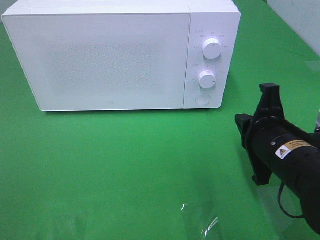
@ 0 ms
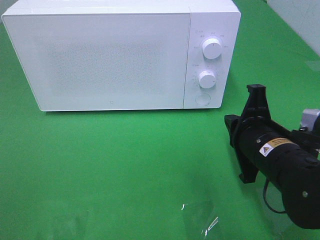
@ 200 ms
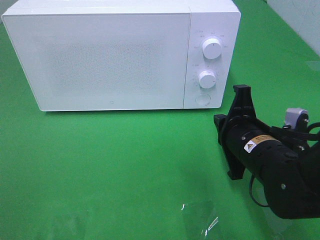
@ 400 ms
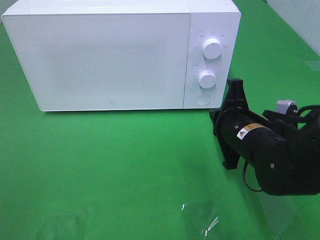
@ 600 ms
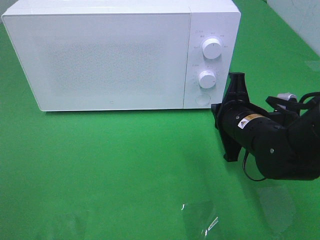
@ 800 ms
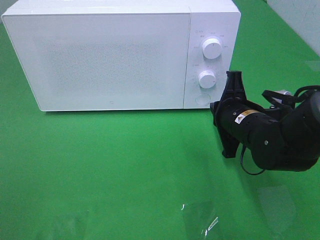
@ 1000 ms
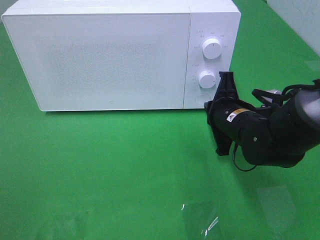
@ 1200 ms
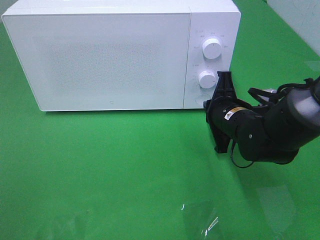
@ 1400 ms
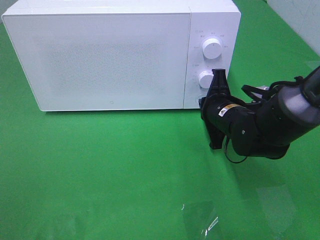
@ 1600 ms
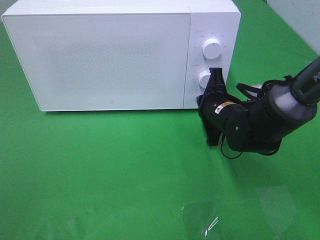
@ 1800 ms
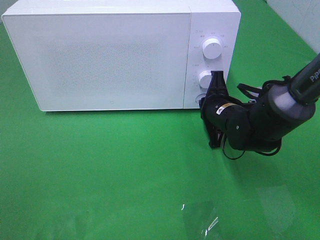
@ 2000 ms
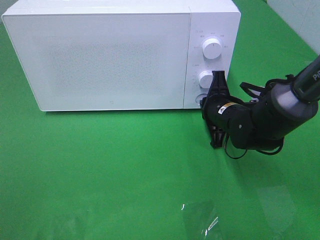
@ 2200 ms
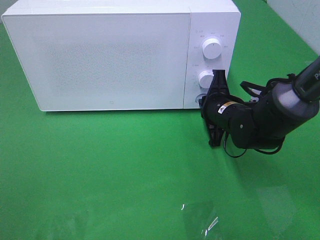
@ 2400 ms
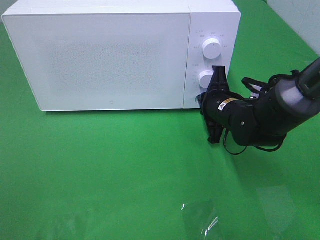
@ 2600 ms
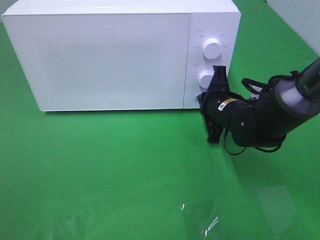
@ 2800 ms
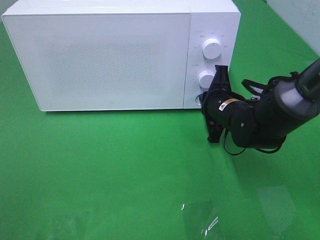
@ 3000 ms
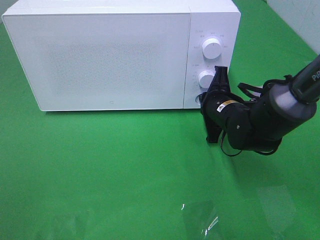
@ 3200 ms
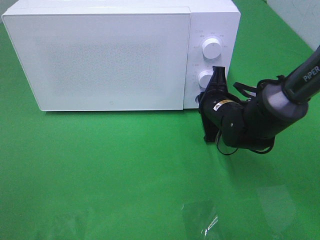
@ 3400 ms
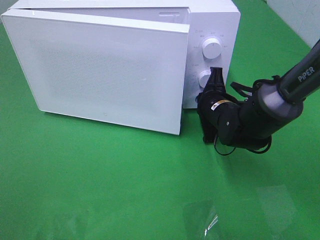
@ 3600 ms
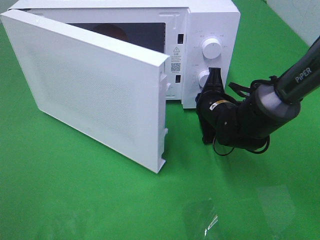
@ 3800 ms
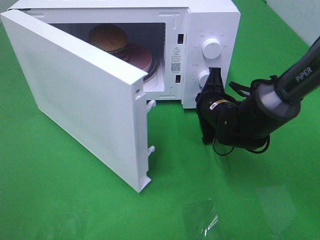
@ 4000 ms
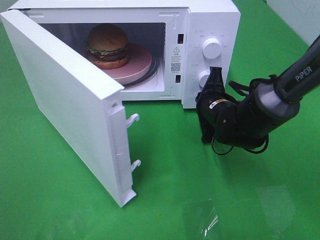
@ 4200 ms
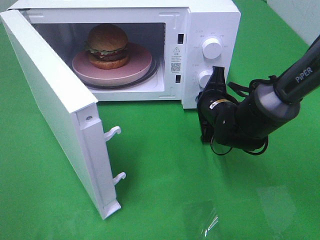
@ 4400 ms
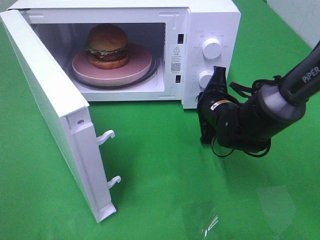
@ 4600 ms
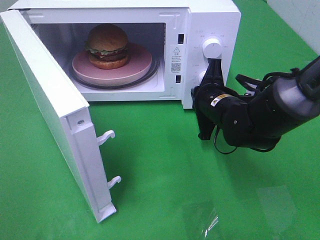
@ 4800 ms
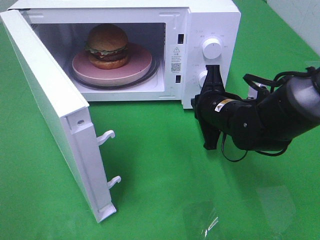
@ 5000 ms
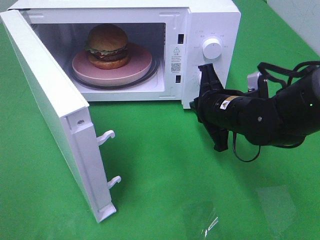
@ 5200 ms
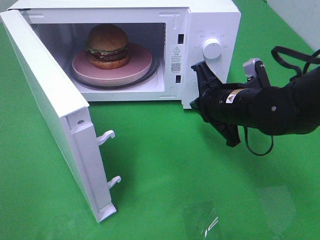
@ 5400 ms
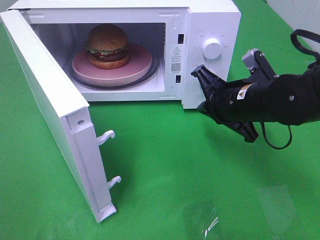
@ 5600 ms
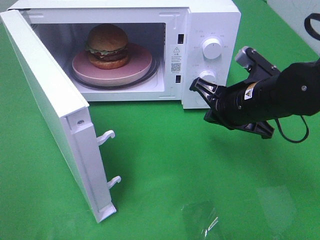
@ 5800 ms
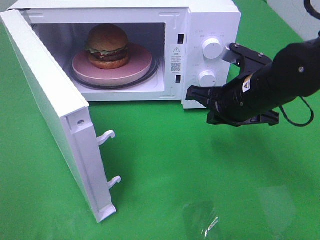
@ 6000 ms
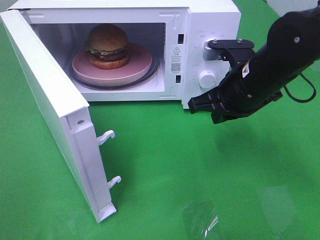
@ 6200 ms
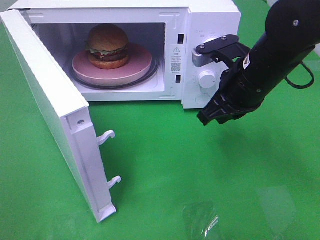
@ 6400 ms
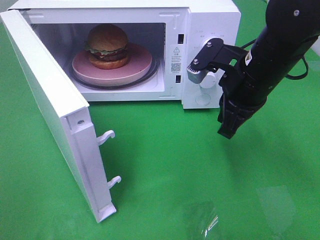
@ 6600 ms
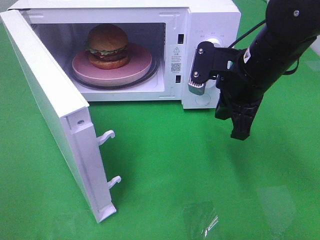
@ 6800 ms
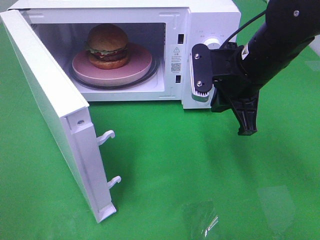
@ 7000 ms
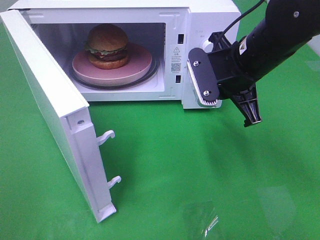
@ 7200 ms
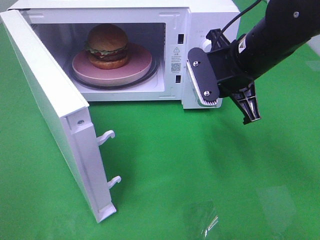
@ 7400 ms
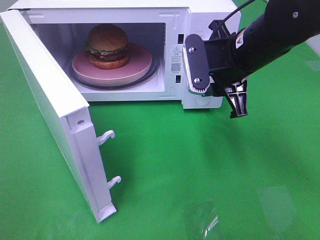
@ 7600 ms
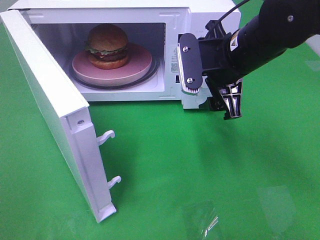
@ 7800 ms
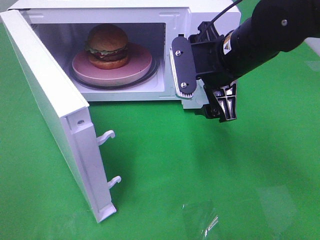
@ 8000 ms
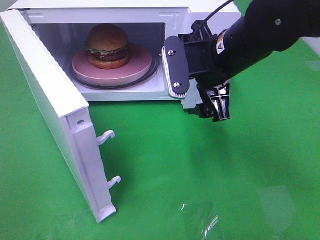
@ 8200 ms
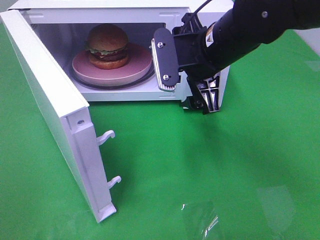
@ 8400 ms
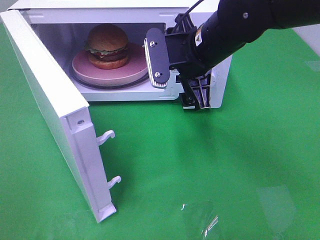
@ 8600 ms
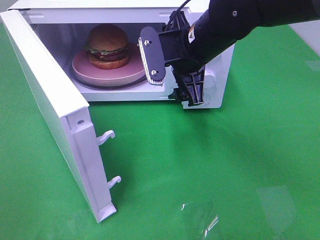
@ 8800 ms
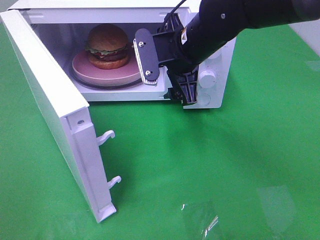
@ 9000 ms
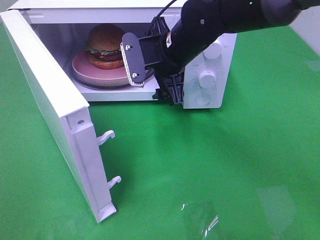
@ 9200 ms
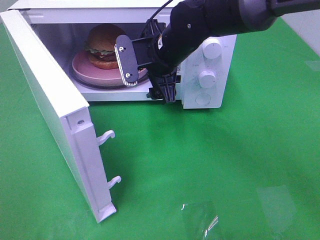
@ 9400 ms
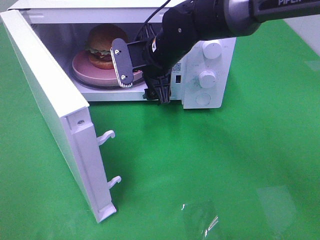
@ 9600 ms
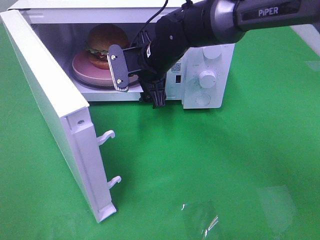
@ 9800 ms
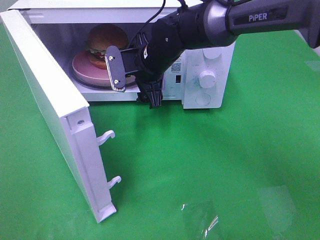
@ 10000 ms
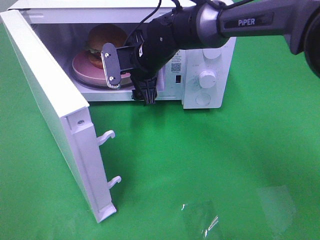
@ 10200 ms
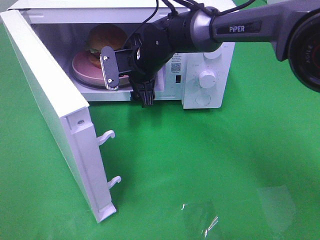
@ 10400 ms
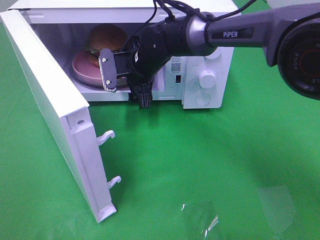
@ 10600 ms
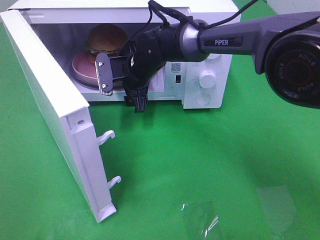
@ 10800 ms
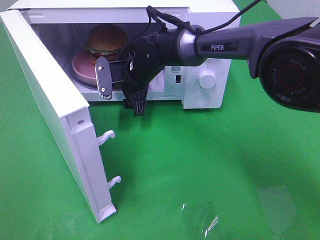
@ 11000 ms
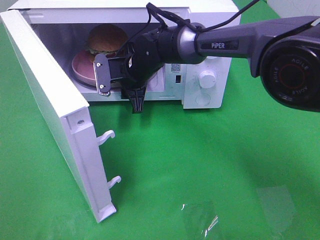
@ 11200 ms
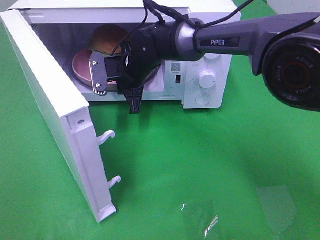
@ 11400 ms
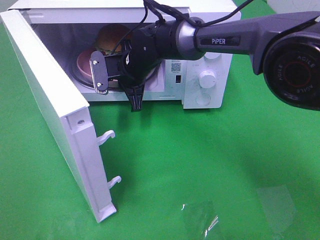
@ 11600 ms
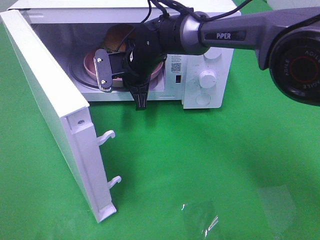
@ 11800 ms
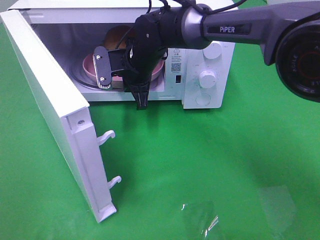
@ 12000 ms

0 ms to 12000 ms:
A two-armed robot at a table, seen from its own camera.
Task of the whole recording: Heat the burger.
Step, 0 ms to 4600 ms: Right hand: press the switch.
Step, 4800 ms to 11400 ms: Right hand: grab the plate with the hamburger.
0 ms to 1600 ms: The right gripper is displaced forward by roughly 10 cm.
1600 ms to 3000 ms: The grippers move only a little.
4400 ms to 6000 ms: The right gripper travels upward and backward by about 10 cm.
6000 ms to 7600 ms: The right gripper shifts roughly 5 cm upward, and opens.
7600 ms to 9000 ms: The right gripper travels to the left by approximately 5 cm, and opens up.
9000 ms to 10400 ms: The right gripper travels forward, to the left and downward by some 10 cm.
10400 ms to 12000 ms: The right gripper closes.

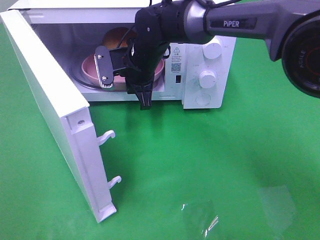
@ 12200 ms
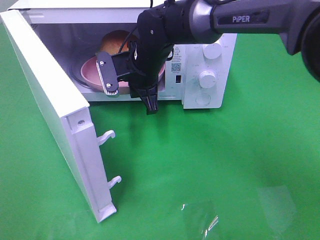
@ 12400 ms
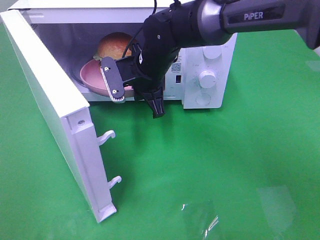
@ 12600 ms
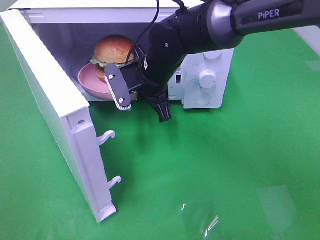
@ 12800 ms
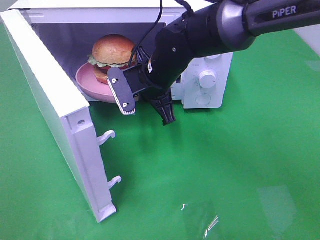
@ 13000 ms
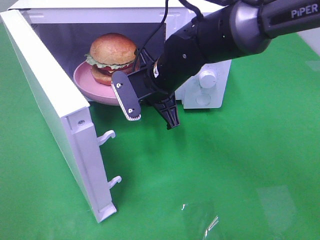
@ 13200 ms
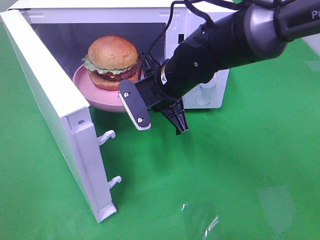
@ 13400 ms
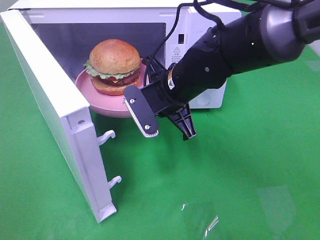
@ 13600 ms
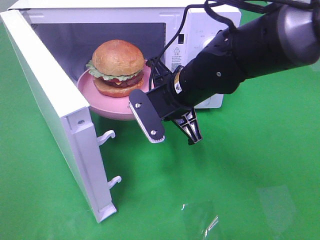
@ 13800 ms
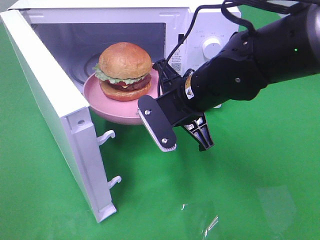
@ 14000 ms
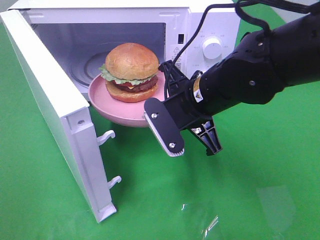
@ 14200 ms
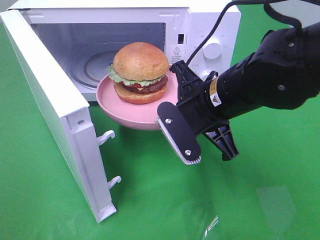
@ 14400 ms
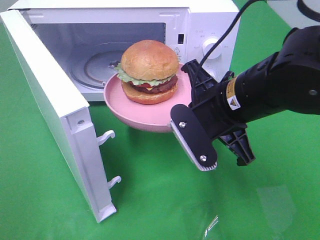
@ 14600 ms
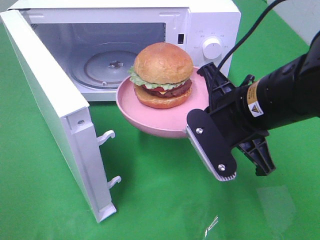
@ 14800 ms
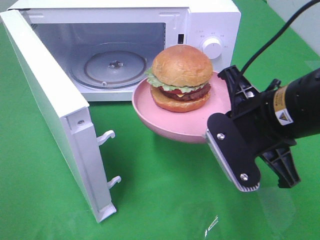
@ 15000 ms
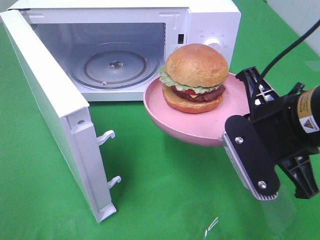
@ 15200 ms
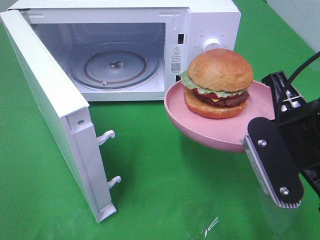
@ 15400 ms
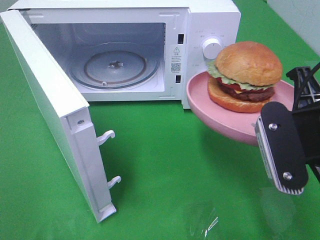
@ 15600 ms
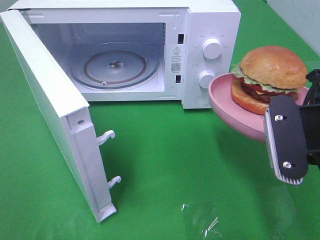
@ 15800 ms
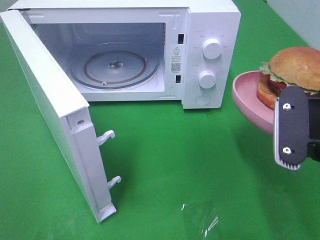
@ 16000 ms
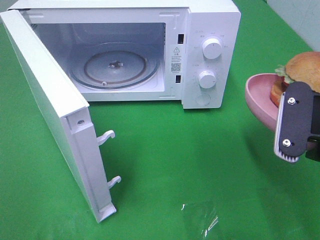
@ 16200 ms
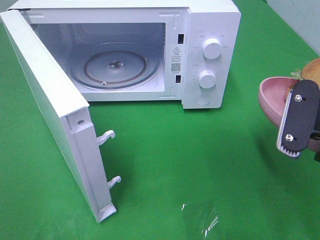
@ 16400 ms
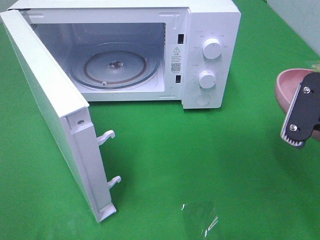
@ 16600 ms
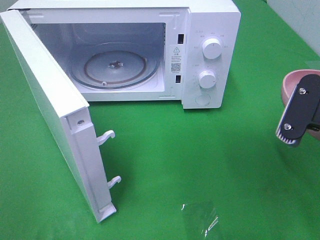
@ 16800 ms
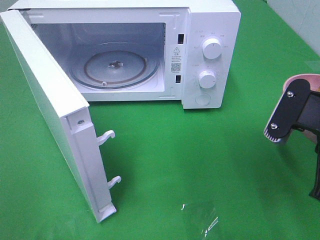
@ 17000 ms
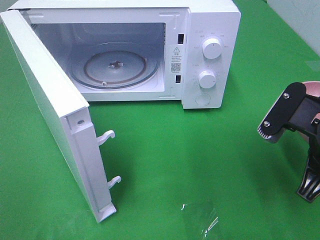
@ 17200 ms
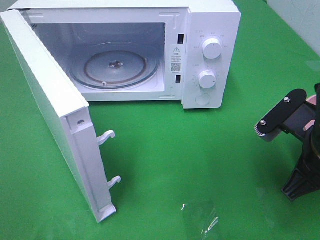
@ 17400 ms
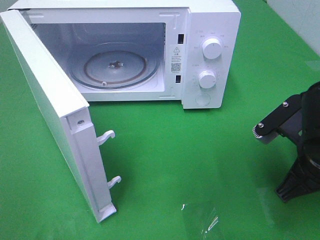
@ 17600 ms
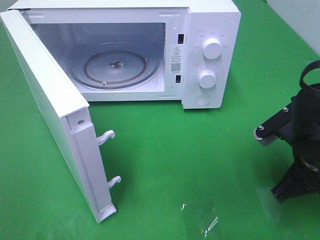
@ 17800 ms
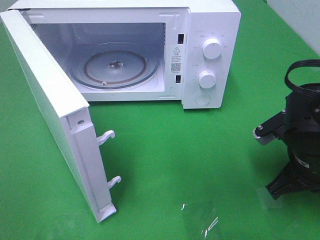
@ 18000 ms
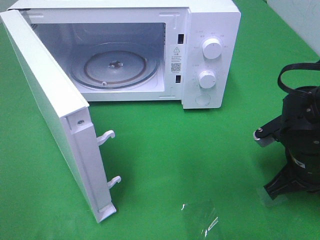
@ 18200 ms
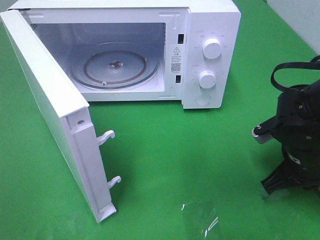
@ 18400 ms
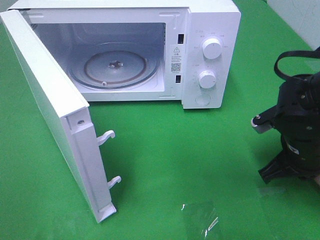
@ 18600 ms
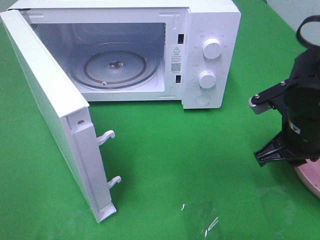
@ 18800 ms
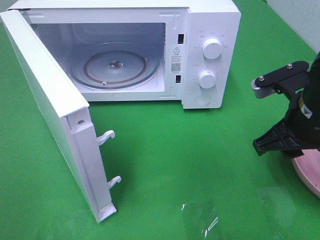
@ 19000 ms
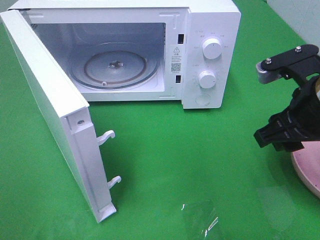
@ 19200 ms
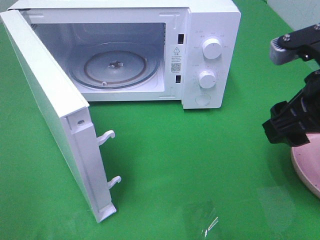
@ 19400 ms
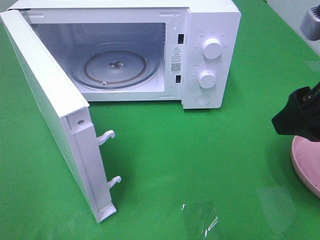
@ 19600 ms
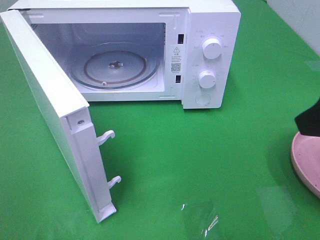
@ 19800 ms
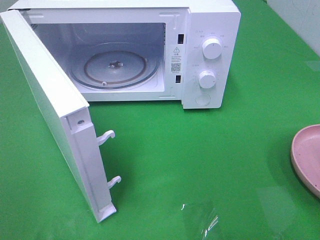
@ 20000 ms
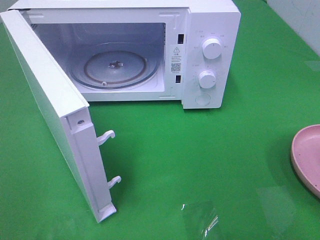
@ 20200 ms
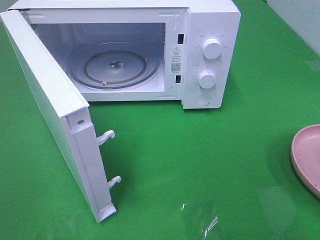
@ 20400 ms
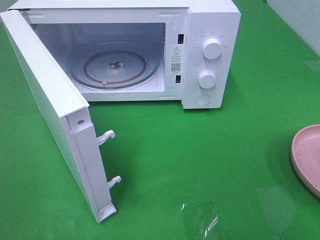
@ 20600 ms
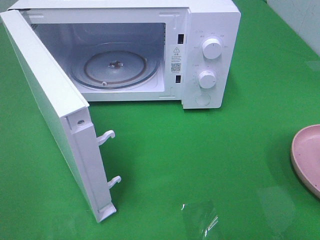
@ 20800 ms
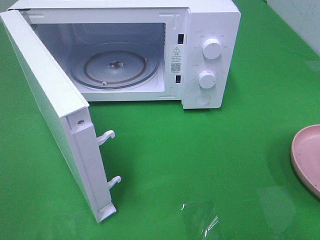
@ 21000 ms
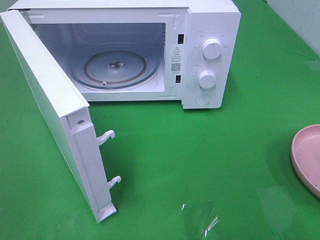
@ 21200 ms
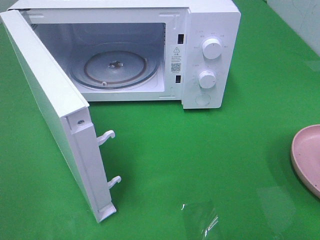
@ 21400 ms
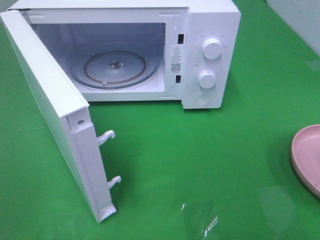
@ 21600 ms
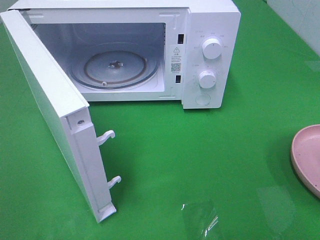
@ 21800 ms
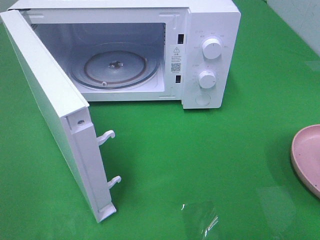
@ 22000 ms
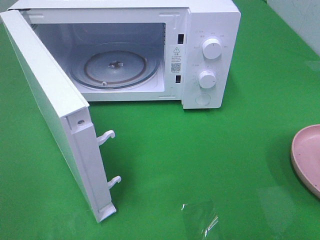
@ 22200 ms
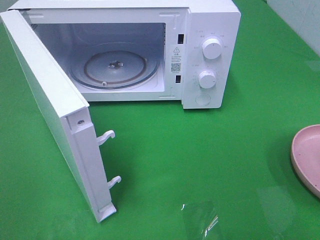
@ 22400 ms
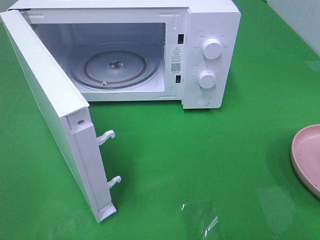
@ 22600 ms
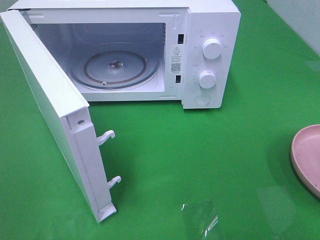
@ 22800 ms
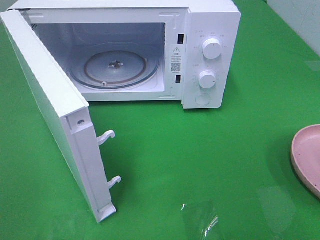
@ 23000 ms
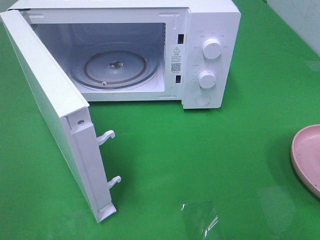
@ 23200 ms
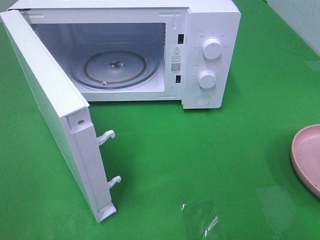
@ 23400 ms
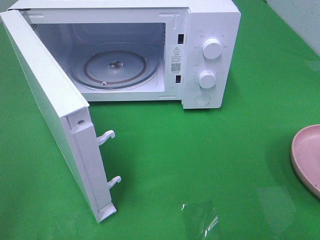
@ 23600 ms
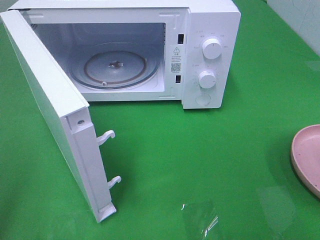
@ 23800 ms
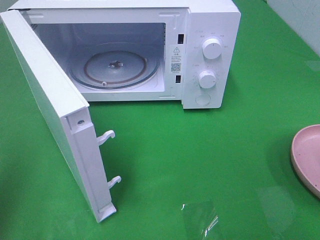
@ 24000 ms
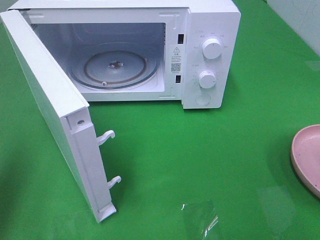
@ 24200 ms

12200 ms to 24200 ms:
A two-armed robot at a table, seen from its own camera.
Task of the whole recording: Heat the burger.
Step, 12200 ms to 18800 ms: Right hand: place the plate on the table.
12200 ms to 13800 ms: The right gripper goes approximately 15 cm backward and to the right.
13800 ms to 15200 ms: The right gripper moves backward, to the right and upward, approximately 20 cm.
15200 ms to 16600 ms: The right gripper heads to the right, covering about 5 cm.
16600 ms to 18200 ms: The right gripper travels downward and forward by about 15 cm.
18200 ms to 19800 ms: The right gripper shifts roughly 20 cm upward and backward, and opens up.
19800 ms to 21200 ms: The right gripper goes some 15 cm backward and to the right.
21200 ms to 22600 ms: Neither gripper changes place.
22600 ms to 24200 ms: The left gripper travels forward by roughly 15 cm, and closes.
